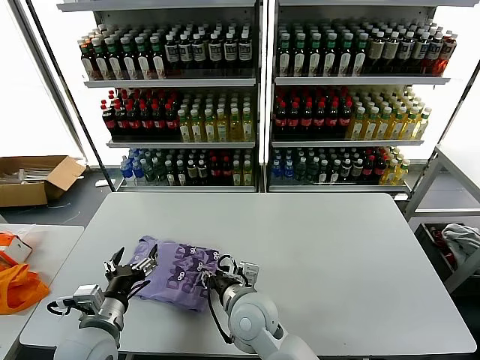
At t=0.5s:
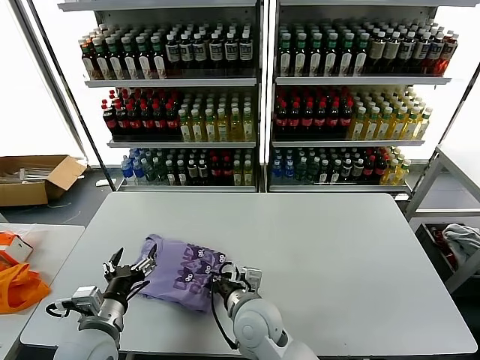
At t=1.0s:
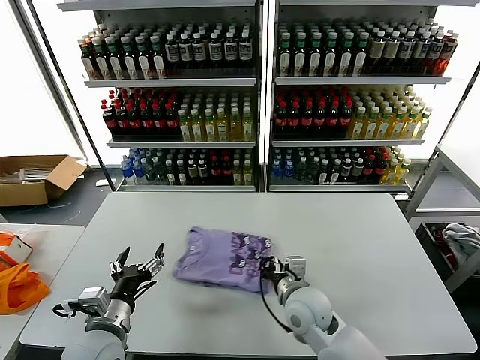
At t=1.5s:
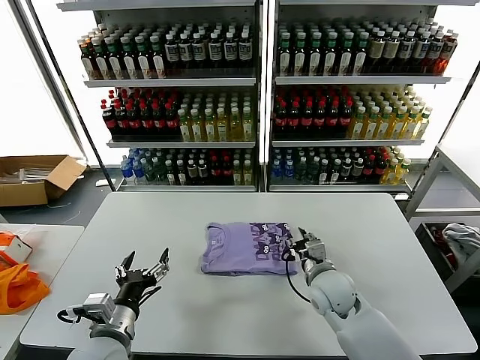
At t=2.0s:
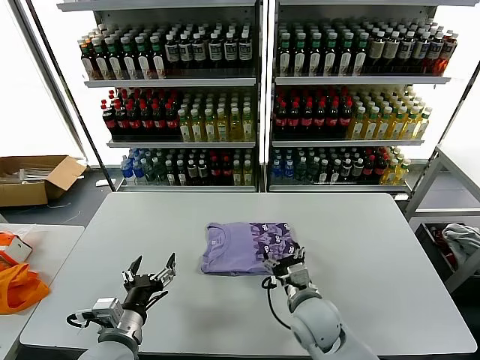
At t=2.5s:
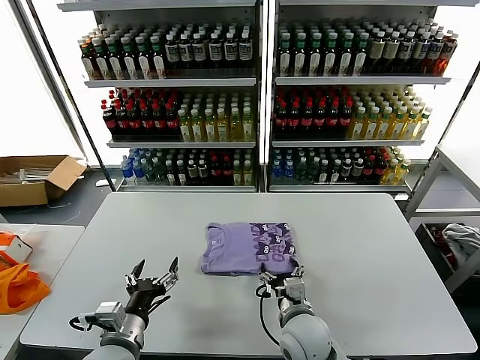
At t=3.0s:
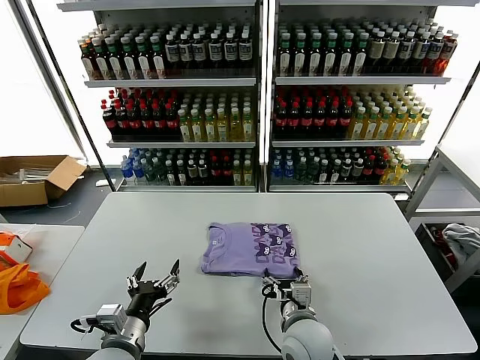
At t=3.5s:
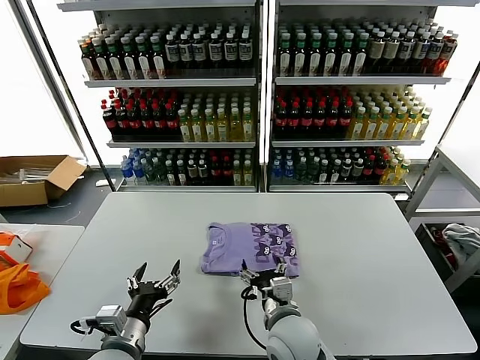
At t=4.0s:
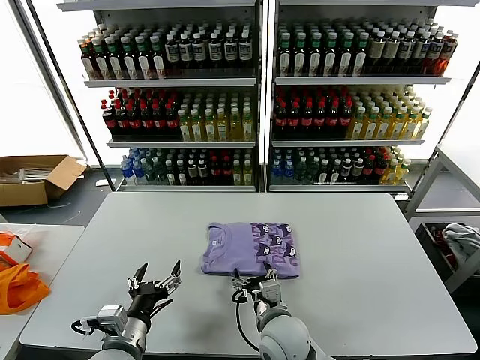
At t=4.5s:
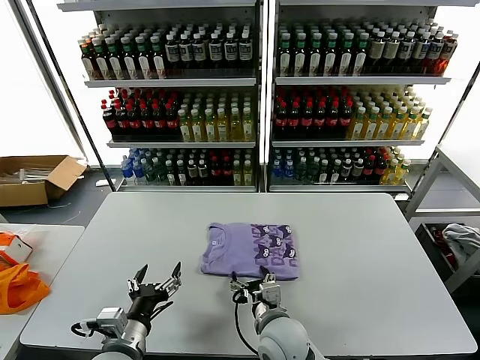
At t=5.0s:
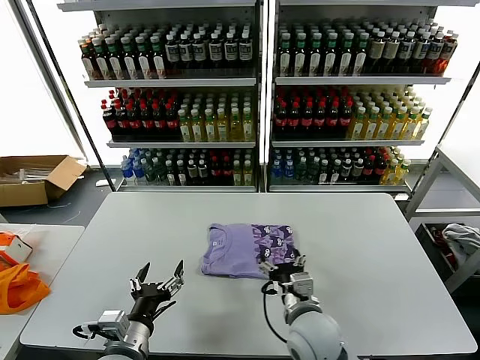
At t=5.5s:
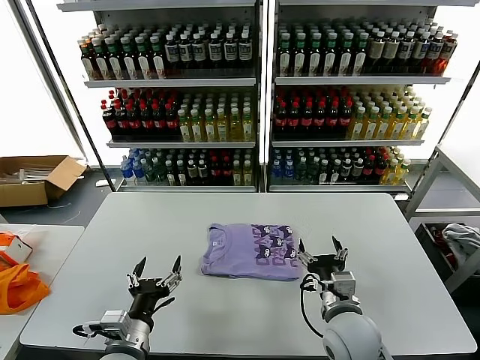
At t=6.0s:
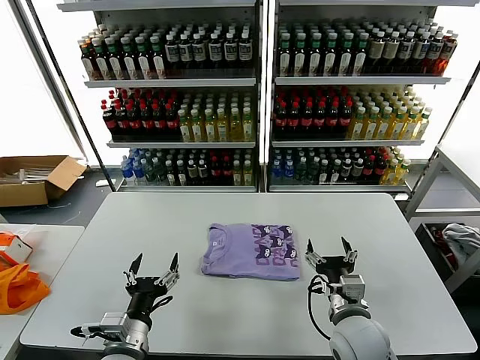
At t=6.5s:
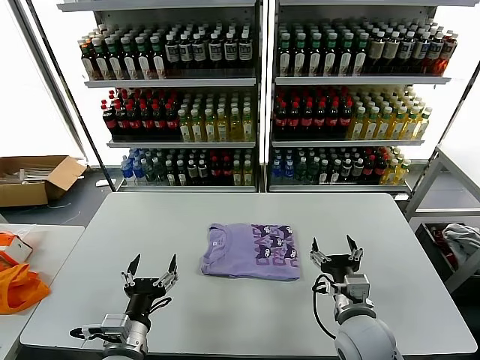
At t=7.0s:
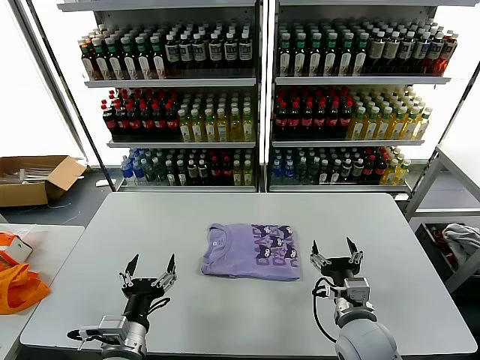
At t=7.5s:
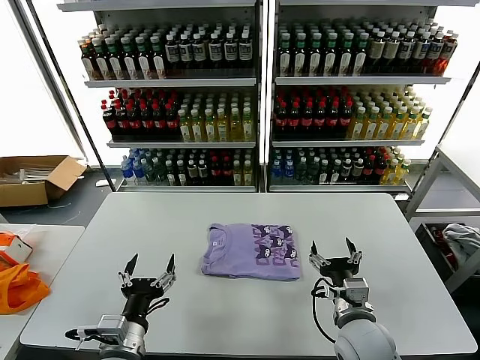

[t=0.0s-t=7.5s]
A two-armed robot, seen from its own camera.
Task of the whole recording: fold and organize the clothes.
Step, t=0.0s to t=4.5s: Drag the clothes to the center of the table.
t=0.0s to t=2.0s: The right gripper goes roughly 15 cm to the right, and opens its fingers.
t=2.0s to t=4.0s: The right gripper shifts some 5 cm to the left.
t=4.0s to t=5.5s: The right gripper shifts approximately 10 cm to the right.
t=5.5s to t=7.5s: The grippers move only a little.
